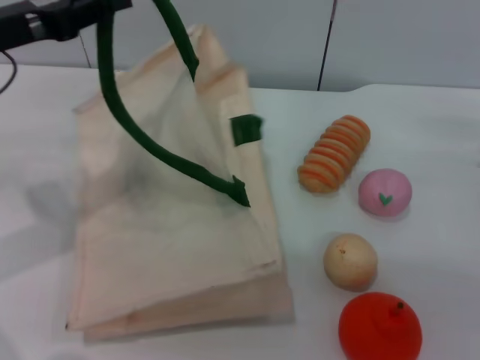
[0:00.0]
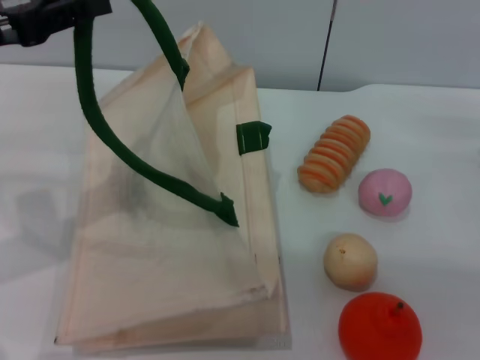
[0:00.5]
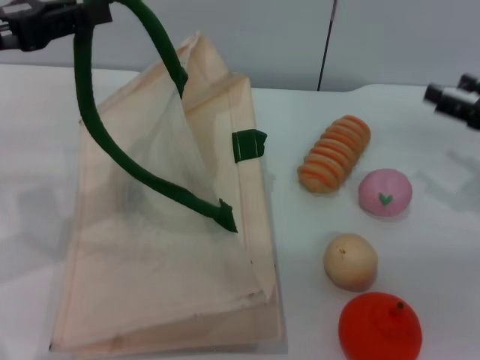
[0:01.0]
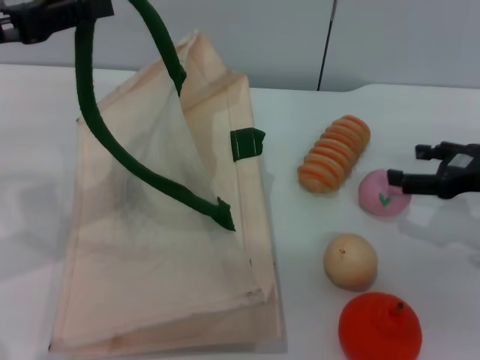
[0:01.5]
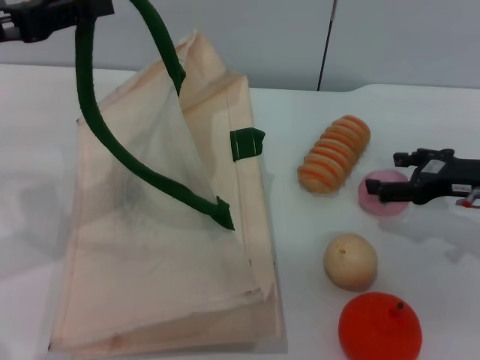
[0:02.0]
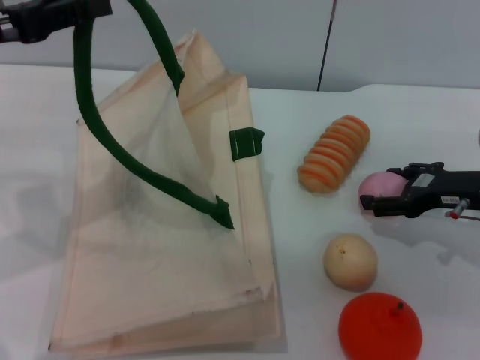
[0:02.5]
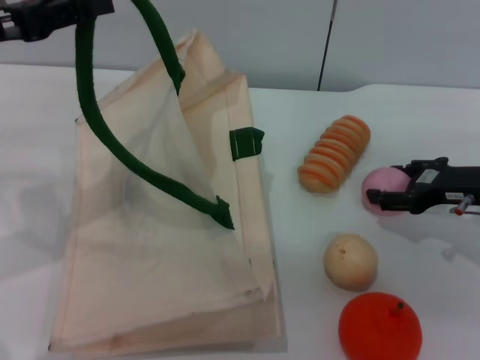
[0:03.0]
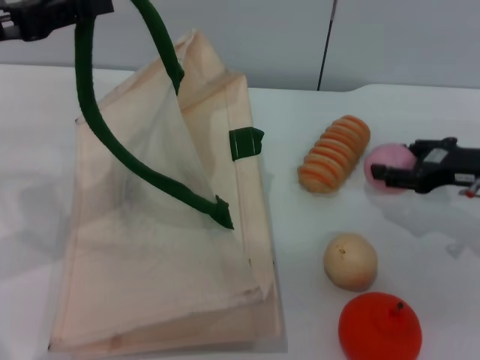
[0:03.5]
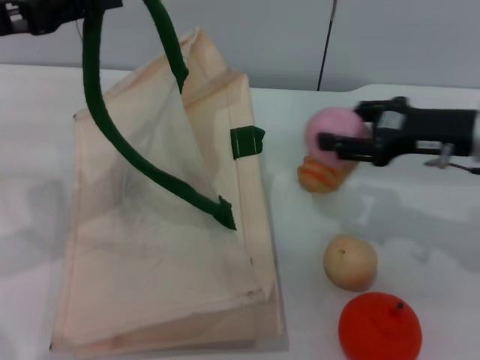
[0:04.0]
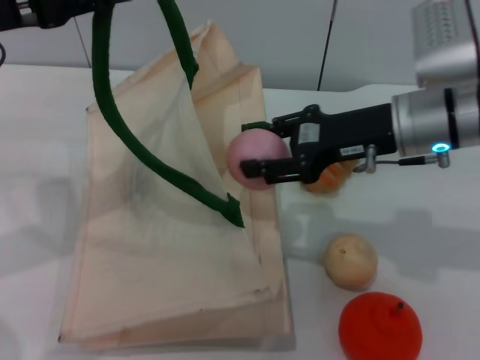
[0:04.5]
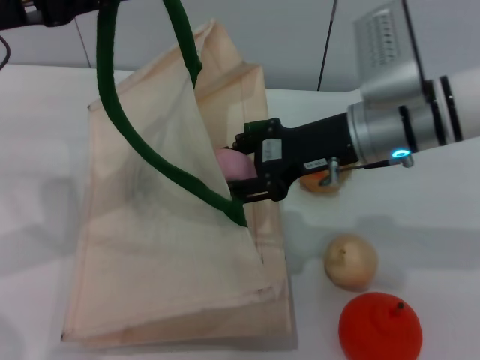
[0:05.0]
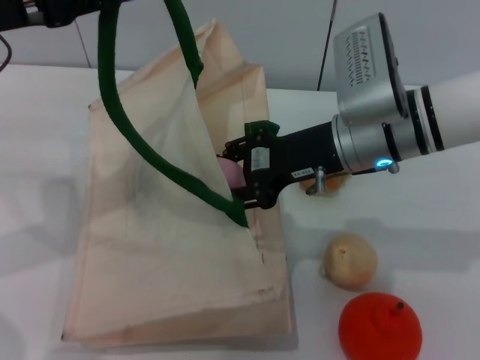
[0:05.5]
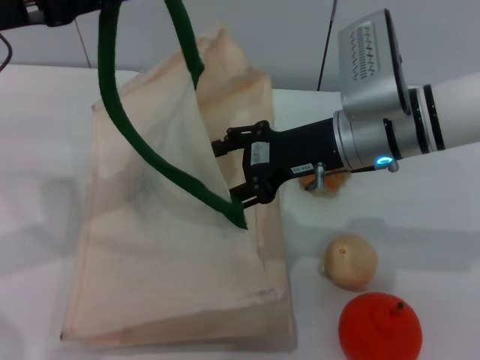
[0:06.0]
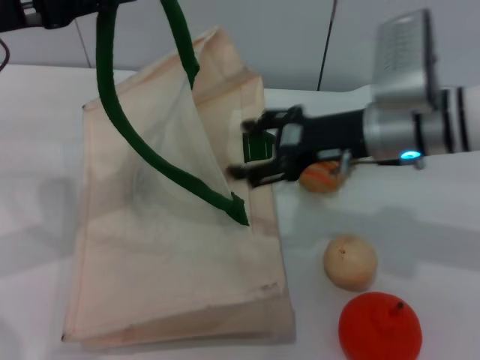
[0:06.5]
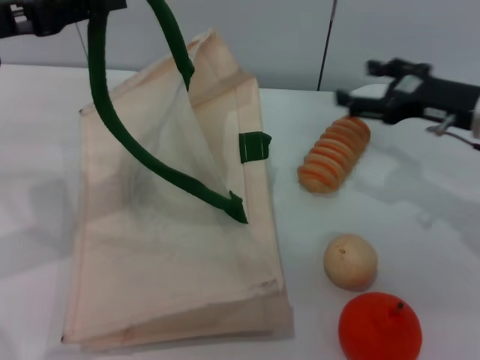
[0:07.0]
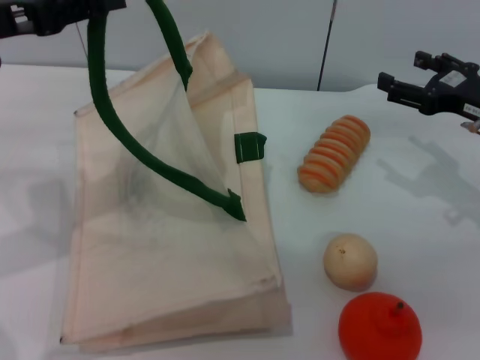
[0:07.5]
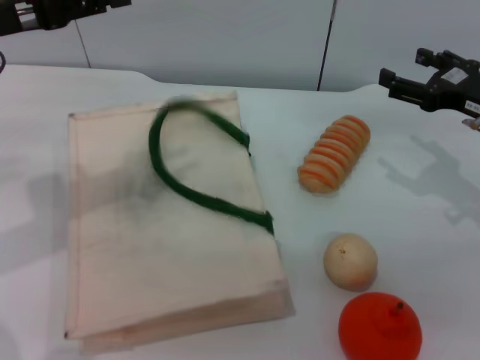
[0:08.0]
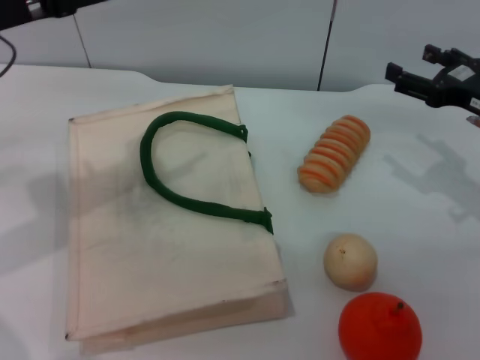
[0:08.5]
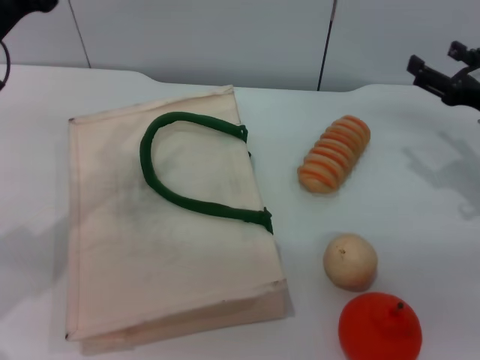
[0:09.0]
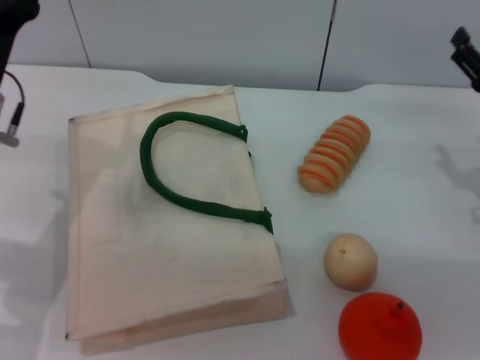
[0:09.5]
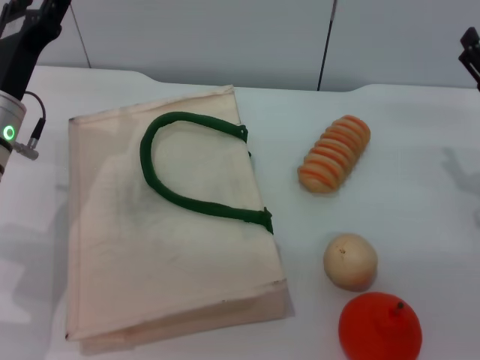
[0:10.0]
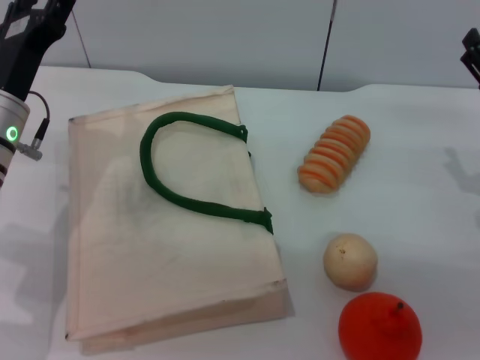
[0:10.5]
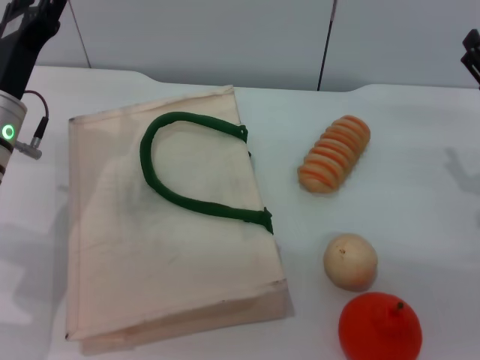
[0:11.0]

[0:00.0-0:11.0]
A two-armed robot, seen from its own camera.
Task of the whole recording: pick up the peach from the table and place it in the white handbag.
Step, 0:00.5 to 0:03.0: Pick up the peach with the right gripper.
Step, 0:04.0 to 0:06.0: Place the peach into the woven bag with the right gripper.
Step, 0:07.0 to 0:08.0: Lower the woven bag with the left gripper to close it.
0:00.0 to 0:02.0: The right gripper changes place by roughly 5 cm.
0:02.0 to 0:03.5: The right gripper closes its fingers.
0:03.5 to 0:05.5: The right gripper heads to the left, covering some 15 cm.
0:05.5 to 0:07.5: The right gripper travels to the right by about 15 cm, and opens.
0:07.5 to 0:09.0: The left gripper moves downward, about 5 cm, and opens.
0:09.0 to 0:11.0: The left gripper travels downward by roughly 5 cm.

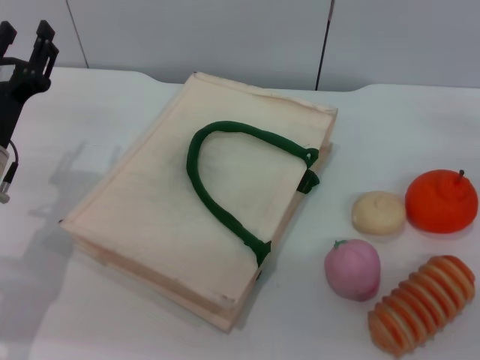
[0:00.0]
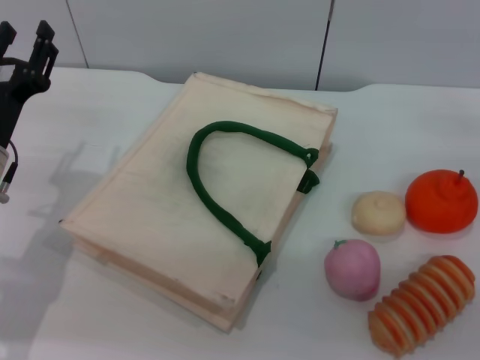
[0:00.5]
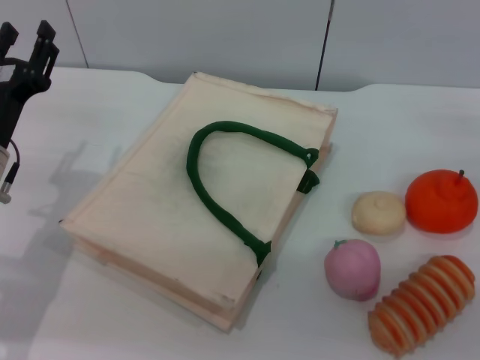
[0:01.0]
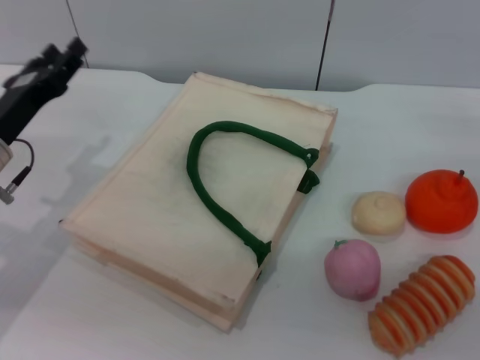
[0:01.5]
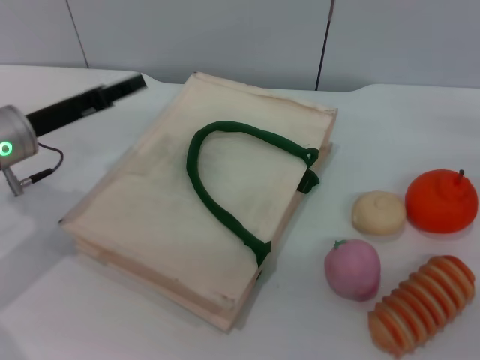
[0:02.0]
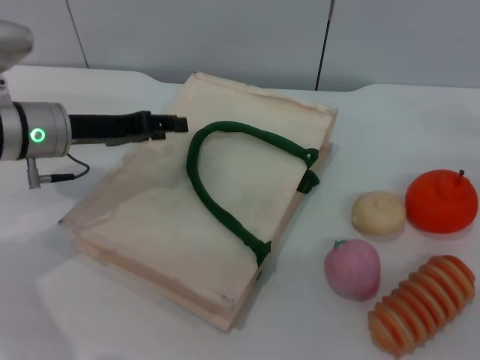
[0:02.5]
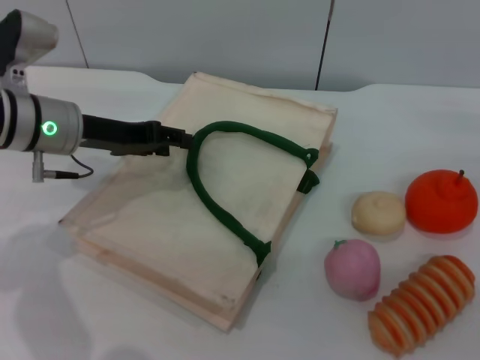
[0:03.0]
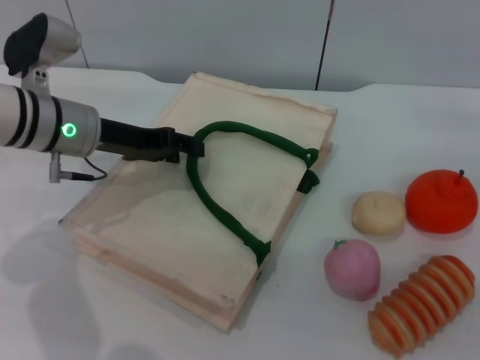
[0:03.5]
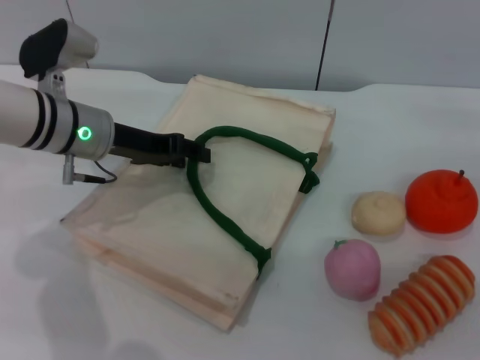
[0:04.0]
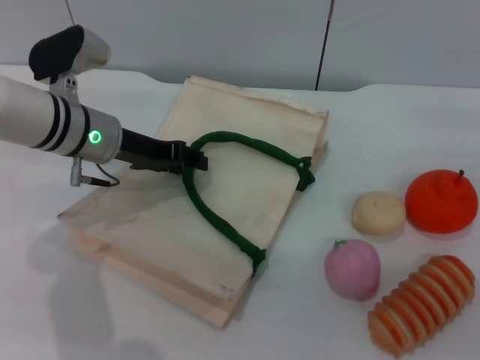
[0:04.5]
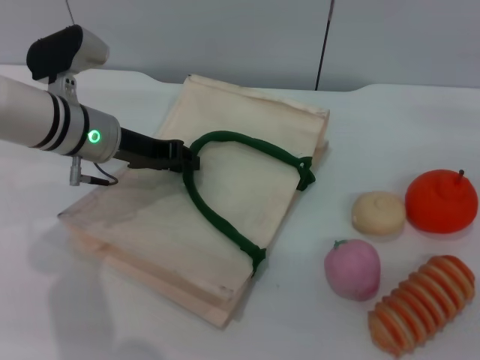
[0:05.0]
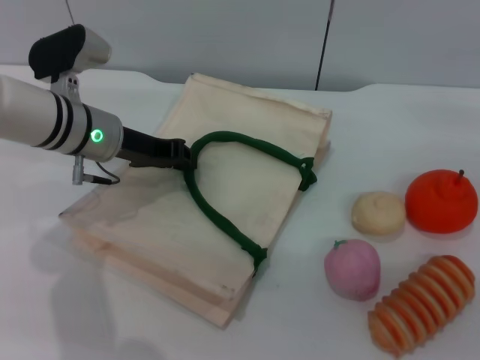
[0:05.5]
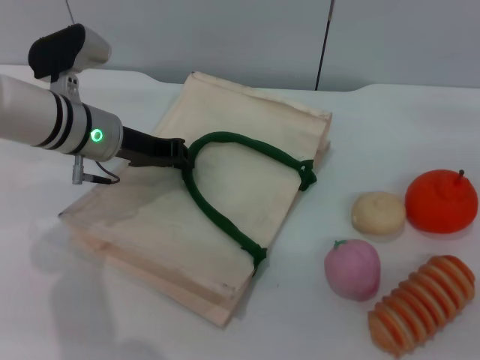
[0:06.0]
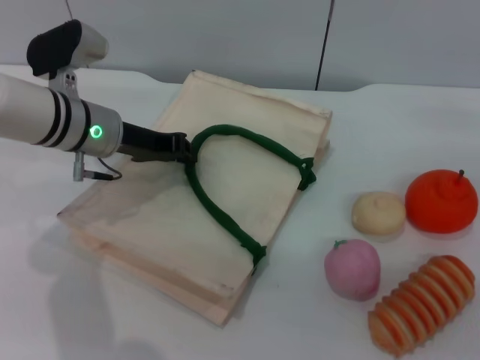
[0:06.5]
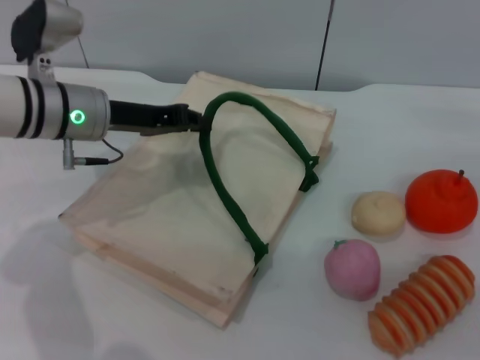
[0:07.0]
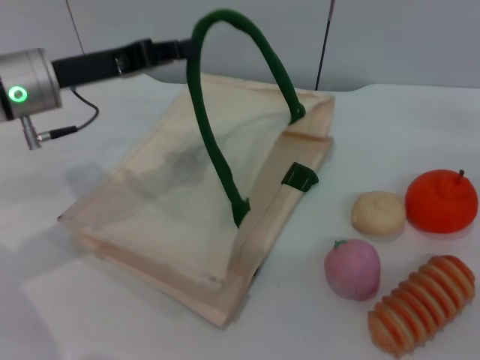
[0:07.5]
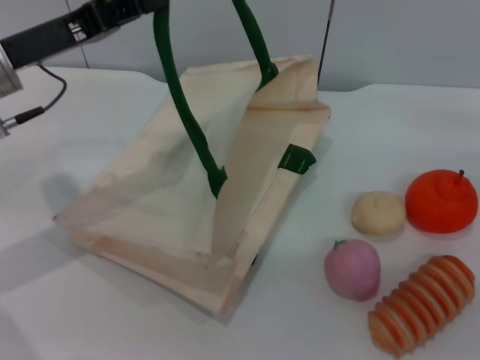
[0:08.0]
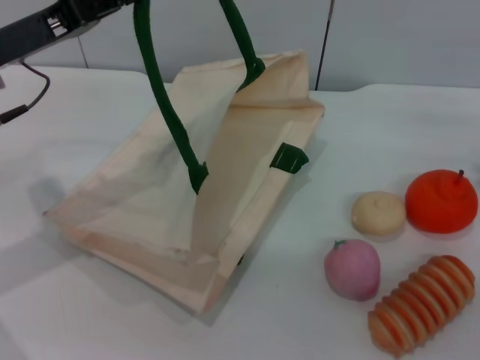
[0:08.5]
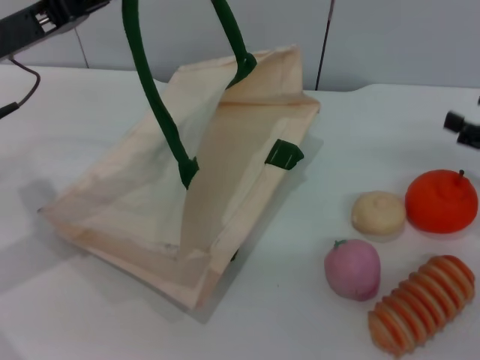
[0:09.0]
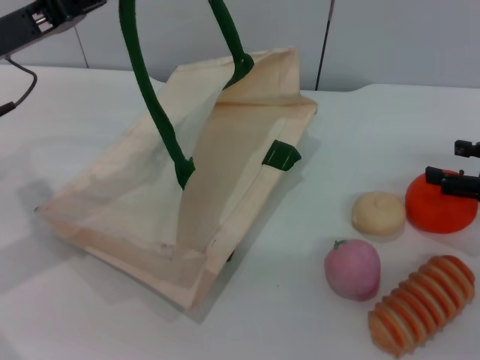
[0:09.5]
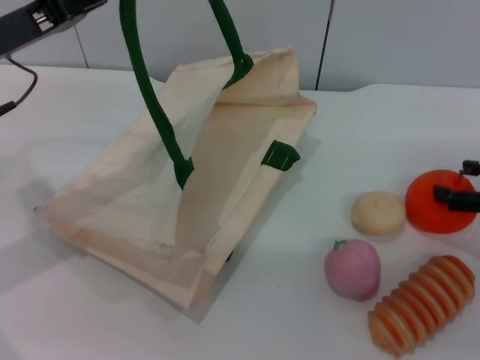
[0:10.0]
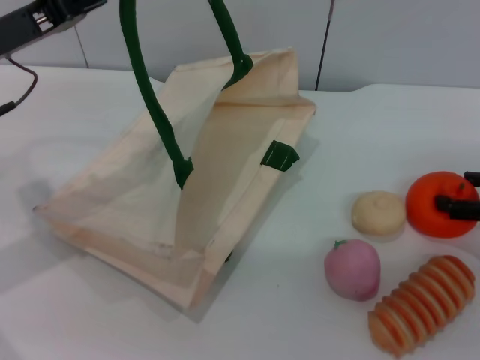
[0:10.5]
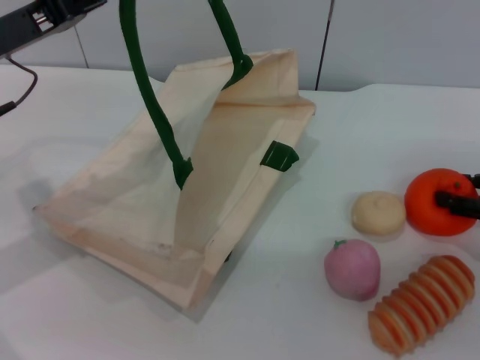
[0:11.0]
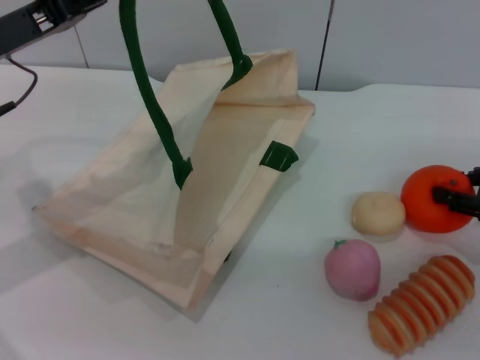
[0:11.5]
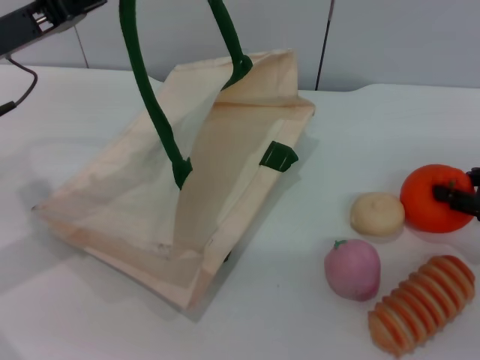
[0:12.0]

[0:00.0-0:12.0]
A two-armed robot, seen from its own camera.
Task of the whole recording: pick up the orange from the table and place it in the white handbag.
Step, 0:00.0 to 0:08.5: Lift the woven bag with the left gripper to open it.
0:00.0 to 0:02.0: The left gripper moves some 5 cm.
0:02.0 to 0:04.0: The left gripper shifts about 5 cm to the right.
0:04.0 to 0:06.0: The left gripper closes its fingers.
0:06.0 to 0:08.0: The left gripper goes roughly 10 cm upward, to the left and backward.
0:10.0 to 0:12.0: The right gripper closes up.

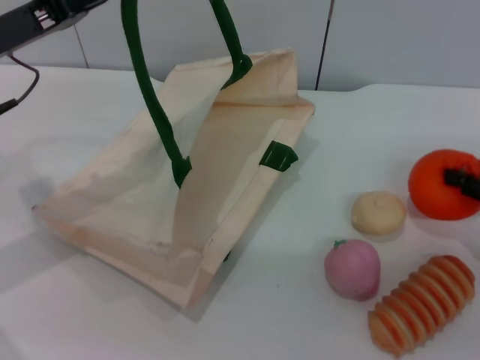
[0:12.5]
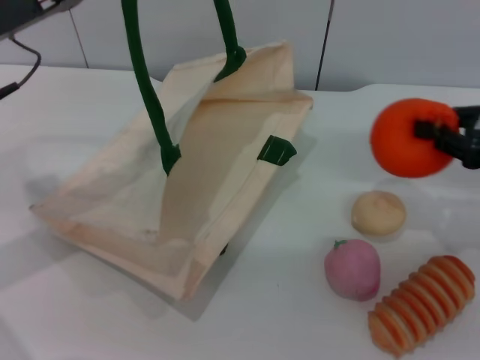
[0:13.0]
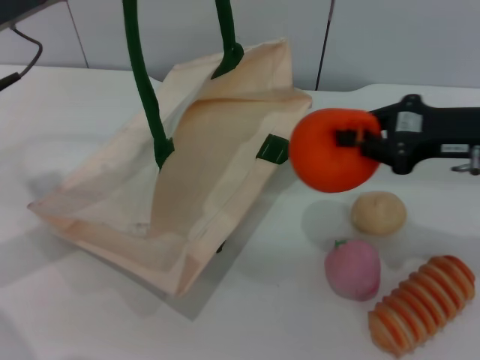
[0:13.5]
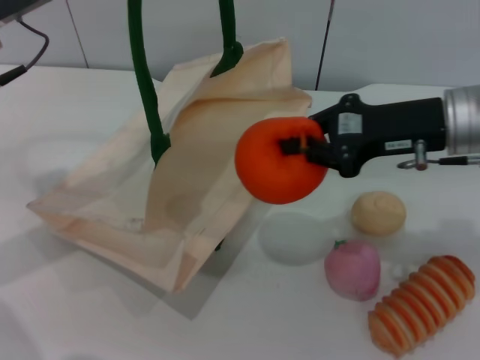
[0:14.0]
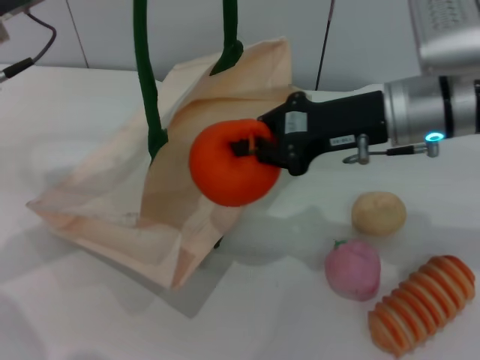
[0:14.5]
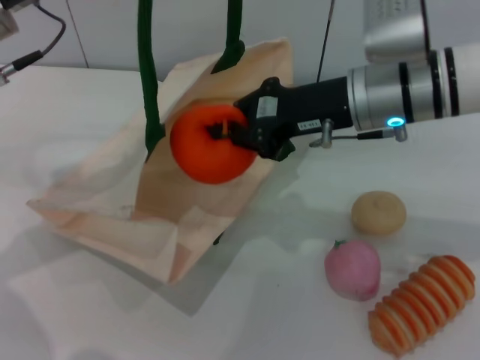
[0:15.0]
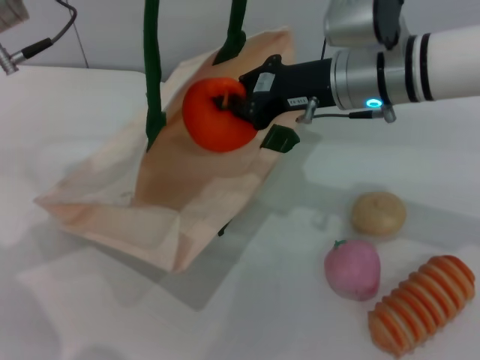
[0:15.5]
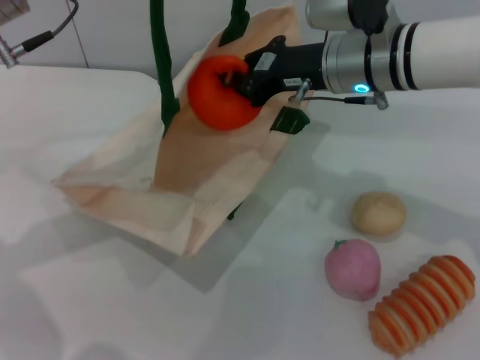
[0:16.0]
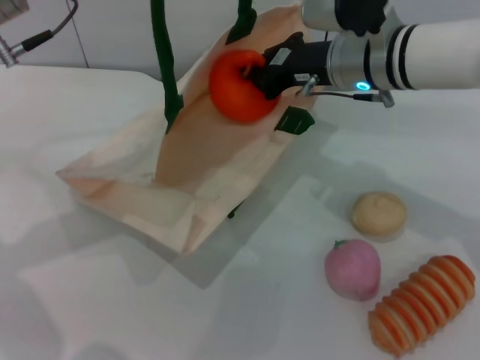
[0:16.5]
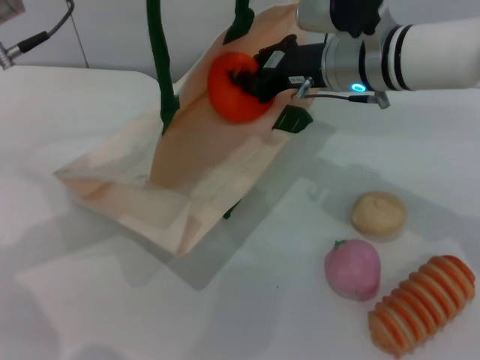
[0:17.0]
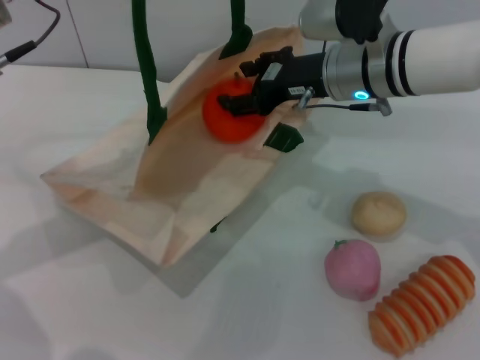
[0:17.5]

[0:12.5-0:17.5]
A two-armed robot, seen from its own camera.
Task of the whole recording: pick up the orange from the table and place it in the white handbag.
0:12.5 to 0:15.0: The right gripper is displaced to the left by roughly 25 cm.
0:15.0 to 0:17.5: The right gripper opens.
